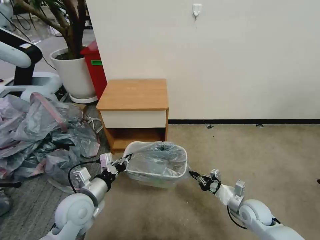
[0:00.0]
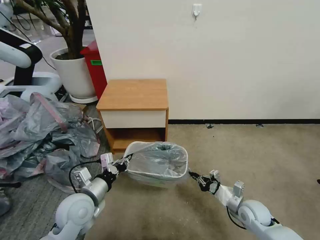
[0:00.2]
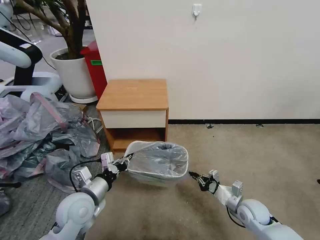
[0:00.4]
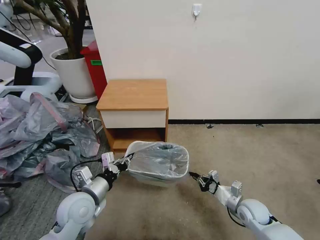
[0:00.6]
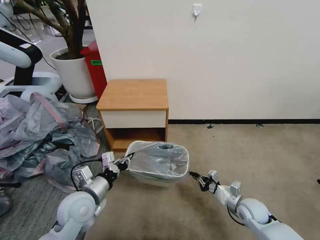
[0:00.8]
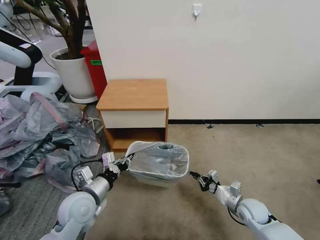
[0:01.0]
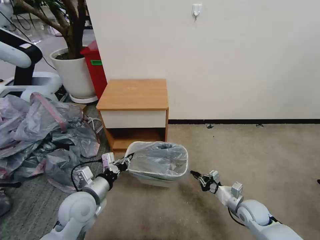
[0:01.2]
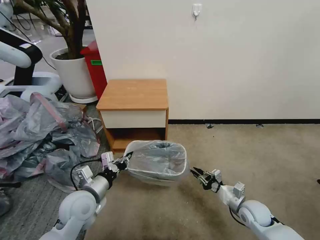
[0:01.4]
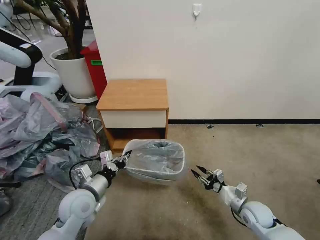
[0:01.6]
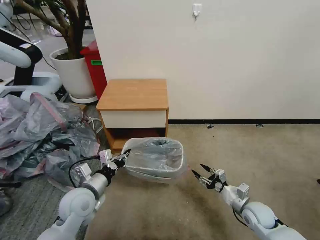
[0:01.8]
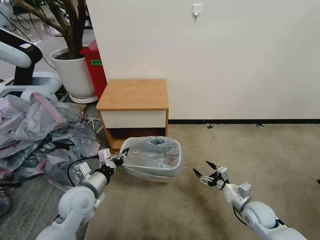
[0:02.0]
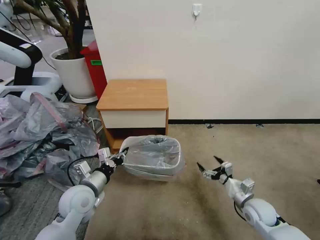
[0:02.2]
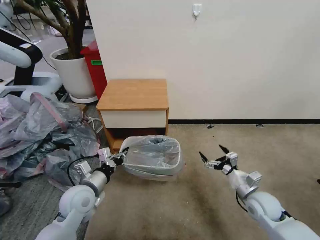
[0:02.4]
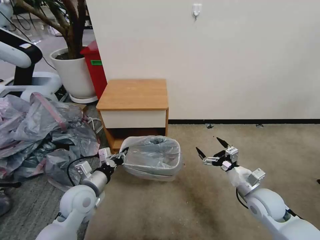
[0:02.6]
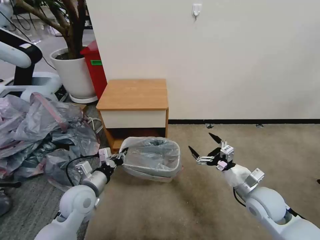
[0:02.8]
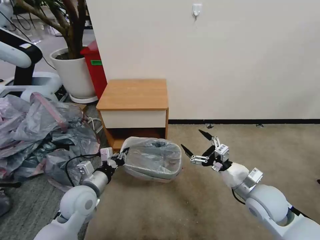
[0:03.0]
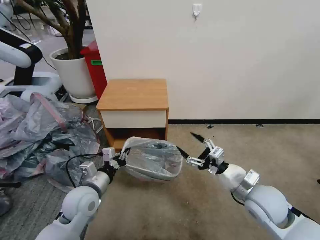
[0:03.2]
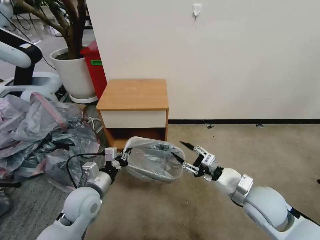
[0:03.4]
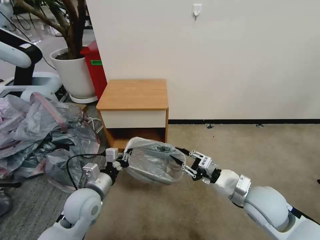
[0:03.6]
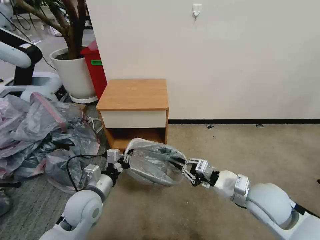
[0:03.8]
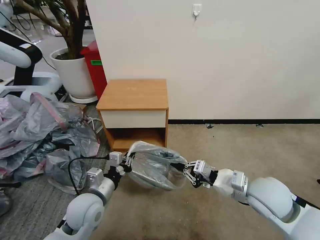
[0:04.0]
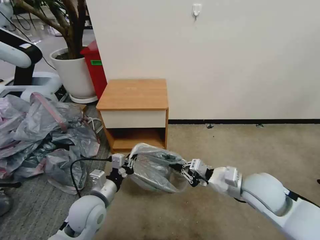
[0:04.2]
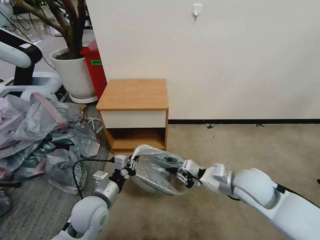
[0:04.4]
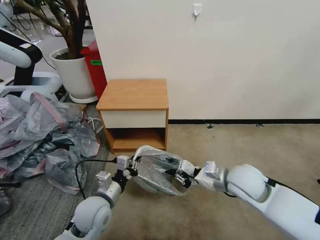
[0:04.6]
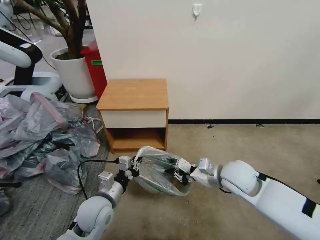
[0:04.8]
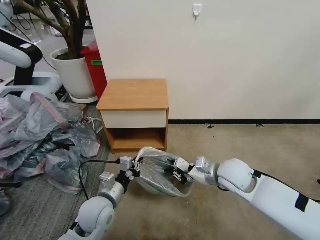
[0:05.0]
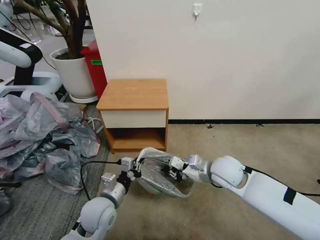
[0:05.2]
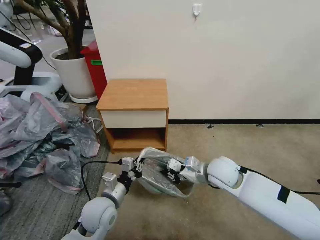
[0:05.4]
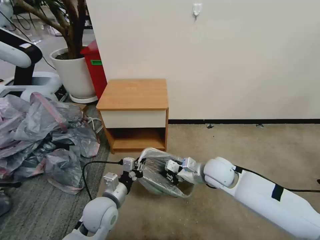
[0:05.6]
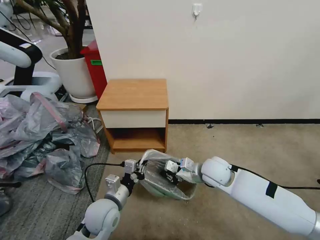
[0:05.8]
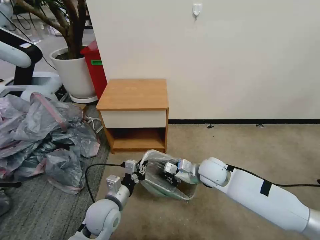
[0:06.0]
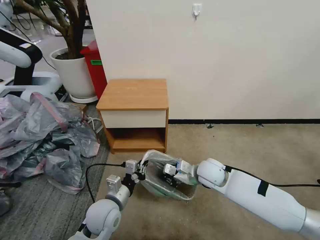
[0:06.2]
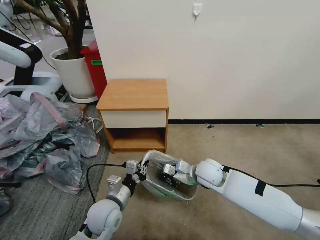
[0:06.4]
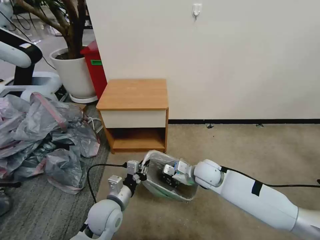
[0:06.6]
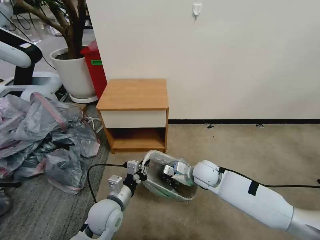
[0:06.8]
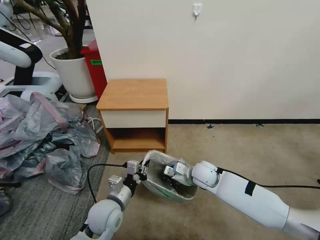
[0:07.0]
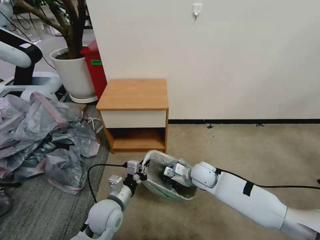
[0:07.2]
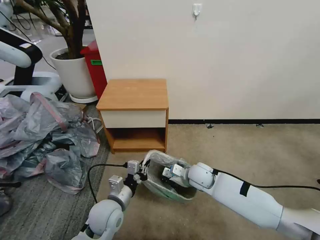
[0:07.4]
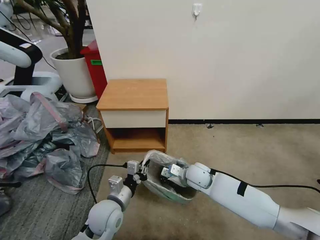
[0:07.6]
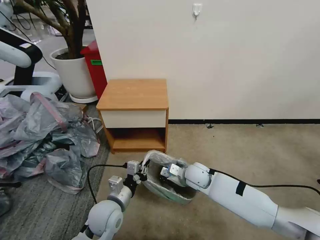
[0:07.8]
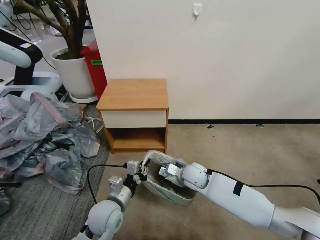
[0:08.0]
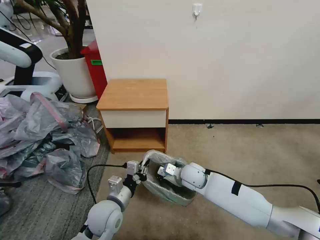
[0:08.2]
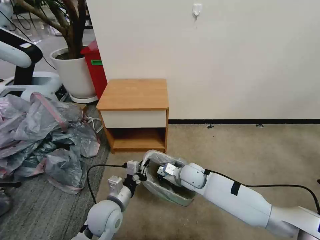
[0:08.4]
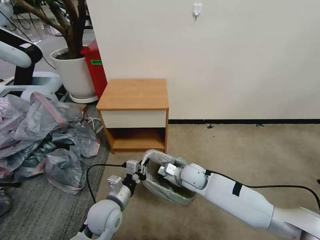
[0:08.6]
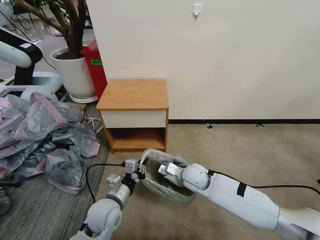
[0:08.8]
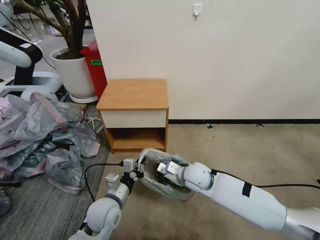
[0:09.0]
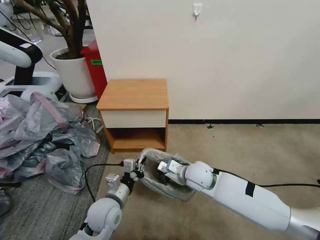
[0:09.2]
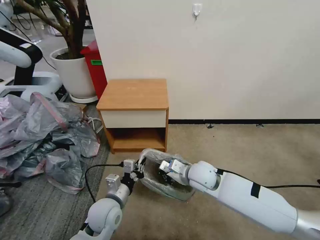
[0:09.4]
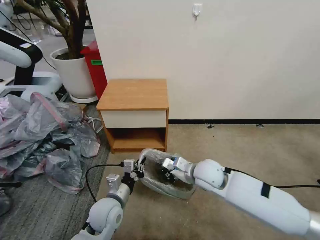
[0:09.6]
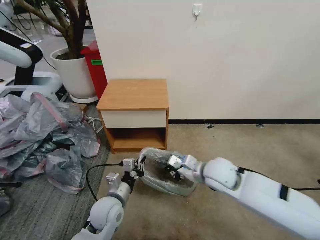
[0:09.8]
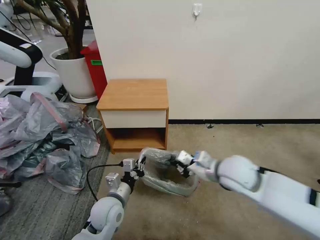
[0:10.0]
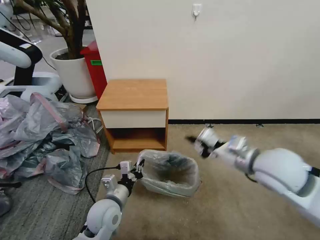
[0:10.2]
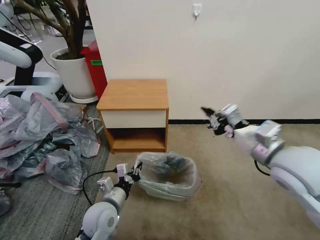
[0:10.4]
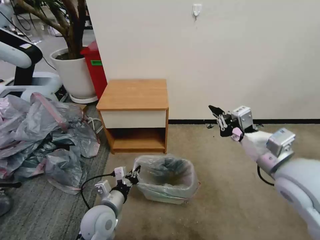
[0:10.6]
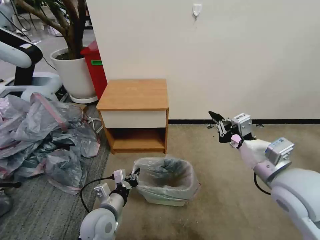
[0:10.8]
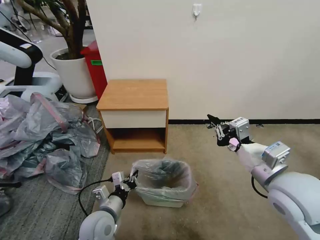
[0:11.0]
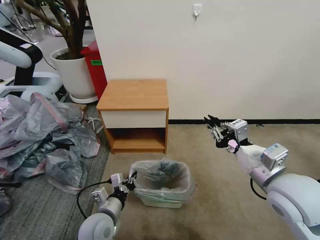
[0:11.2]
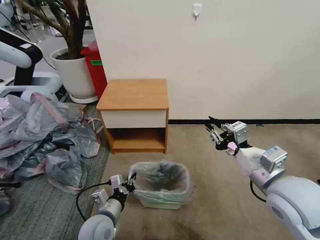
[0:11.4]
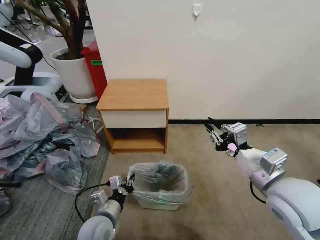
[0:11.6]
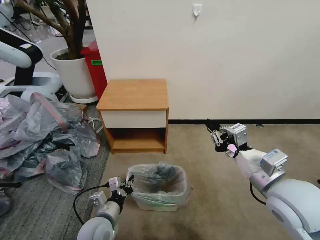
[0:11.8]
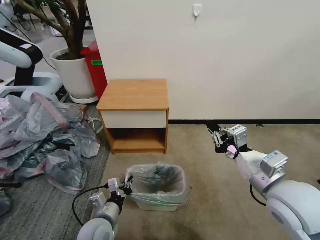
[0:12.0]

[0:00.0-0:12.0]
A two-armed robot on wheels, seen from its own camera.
Task of the whole recording: Pick up the garbage bag from the table and place it over the trash can.
0:00.0 to 0:01.6: The right gripper opens its fingers.
0:01.6 to 0:03.0: The right gripper goes approximately 15 cm upward, and opens up.
0:03.0 to 0:04.4: The left gripper changes place by some 5 cm; the right gripper shifts by some 5 cm, and closes up.
0:04.4 to 0:06.0: The right gripper shifts roughly 15 cm forward, to the left and downward.
0:06.0 to 0:07.6: The right gripper travels downward by approximately 5 cm.
0:07.6 to 0:09.0: There are only small adjustments of the grippers.
0:09.0 to 0:10.4: The right gripper moves upward and to the right, about 30 cm.
0:10.4 to 0:12.0: The right gripper is displaced downward and backward by approximately 5 cm.

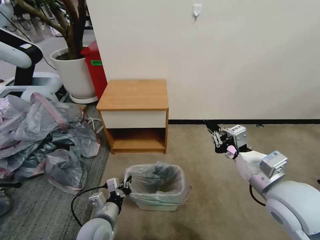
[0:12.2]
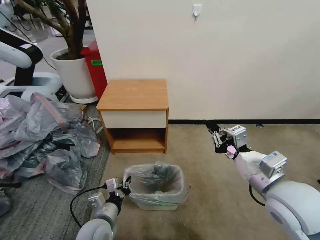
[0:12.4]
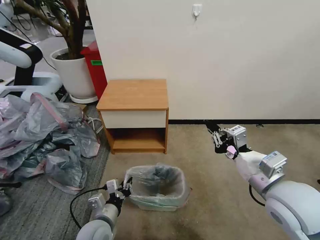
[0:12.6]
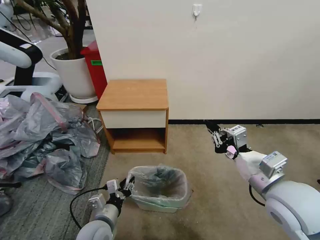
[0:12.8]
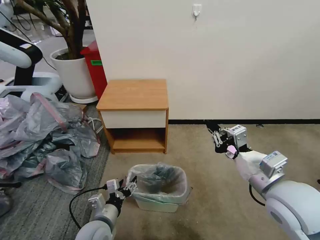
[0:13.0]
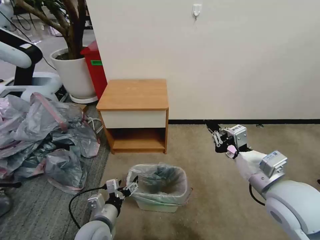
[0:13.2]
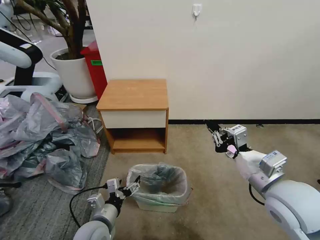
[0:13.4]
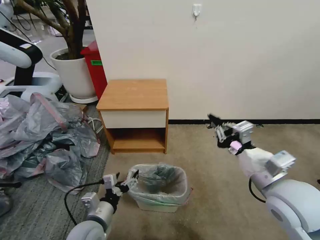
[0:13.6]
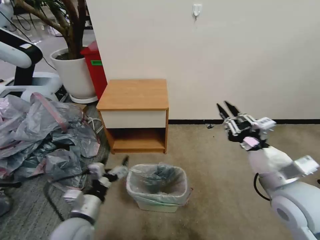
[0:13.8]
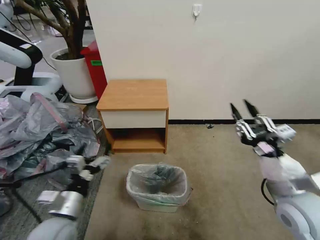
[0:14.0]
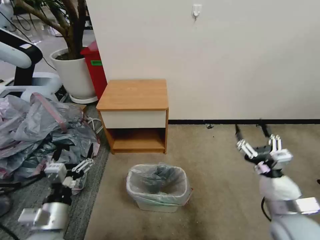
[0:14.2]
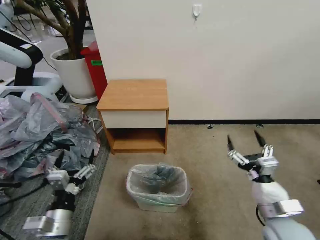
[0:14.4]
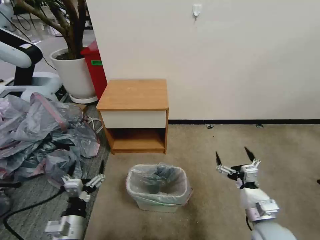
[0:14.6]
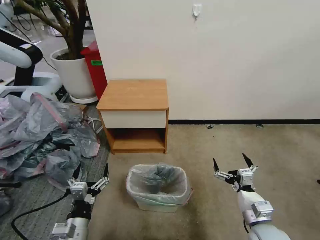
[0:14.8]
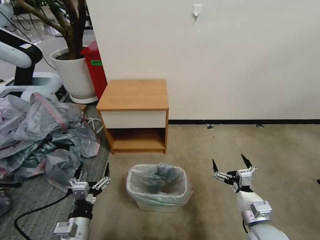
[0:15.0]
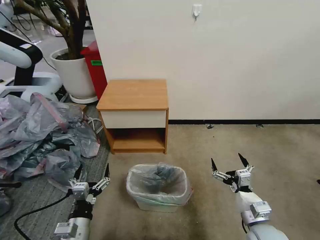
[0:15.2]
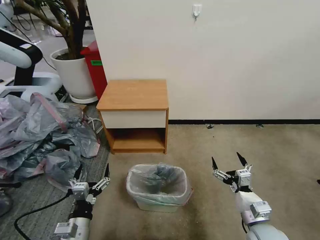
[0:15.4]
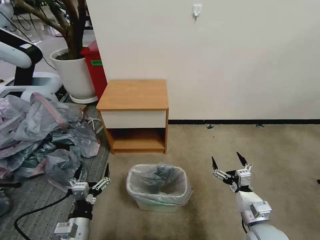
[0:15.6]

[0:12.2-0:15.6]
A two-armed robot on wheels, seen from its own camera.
Task of the whole recording: Pick up the garbage bag from the table and place it over the trash can.
0:12.2 to 0:13.8: The left gripper travels upward by about 5 cm, and opens its fingers.
0:13.8 to 0:15.6: The left gripper travels downward by approximately 5 cm, while the right gripper heads downward, covering roughly 20 cm, and opens up.

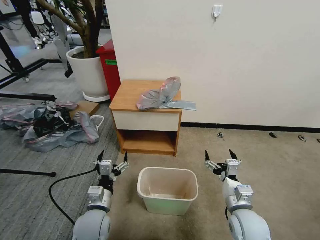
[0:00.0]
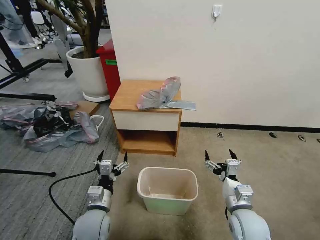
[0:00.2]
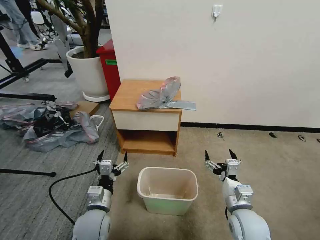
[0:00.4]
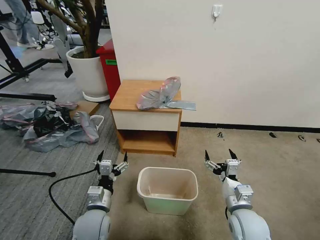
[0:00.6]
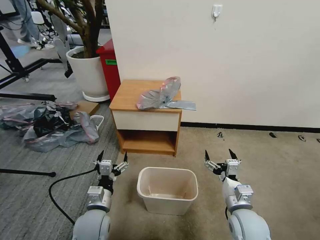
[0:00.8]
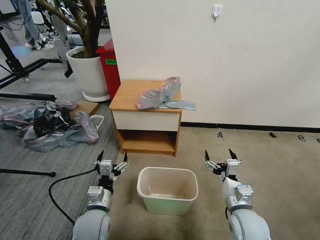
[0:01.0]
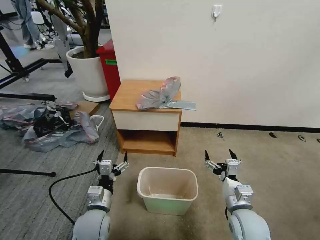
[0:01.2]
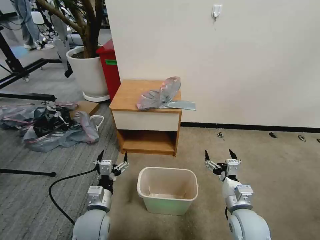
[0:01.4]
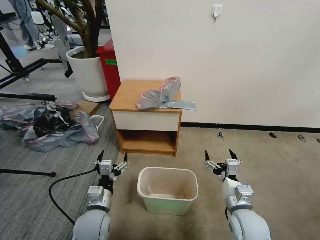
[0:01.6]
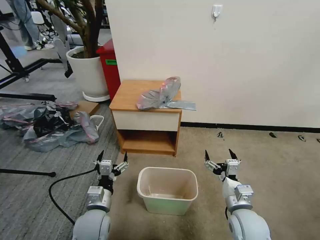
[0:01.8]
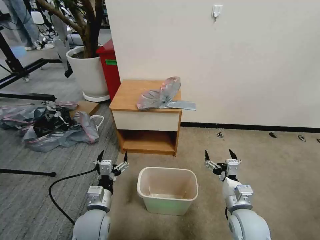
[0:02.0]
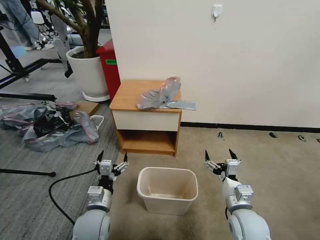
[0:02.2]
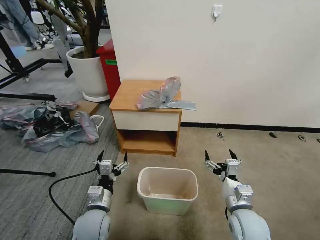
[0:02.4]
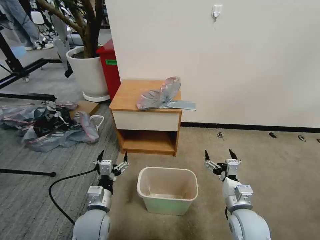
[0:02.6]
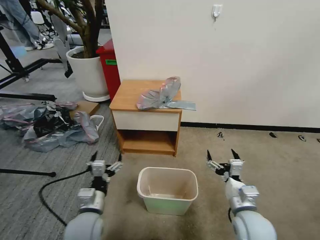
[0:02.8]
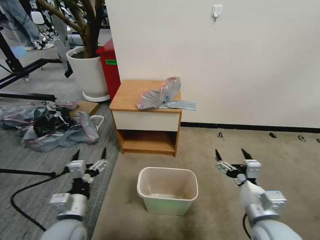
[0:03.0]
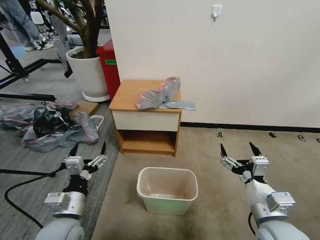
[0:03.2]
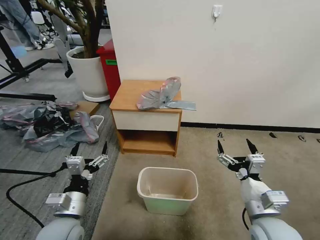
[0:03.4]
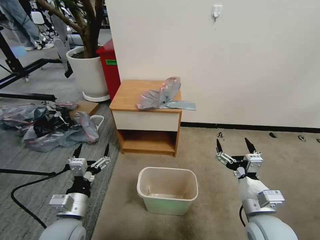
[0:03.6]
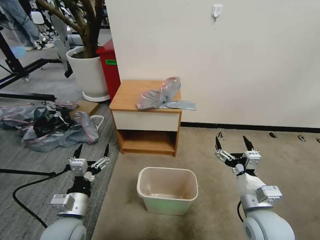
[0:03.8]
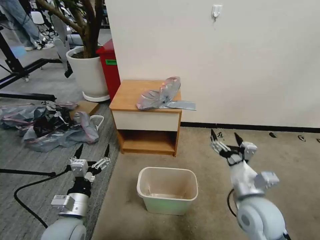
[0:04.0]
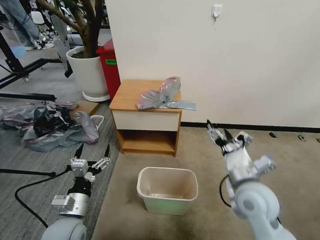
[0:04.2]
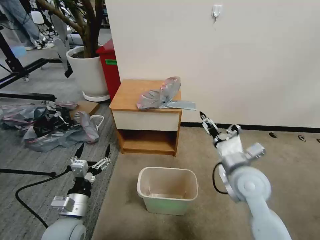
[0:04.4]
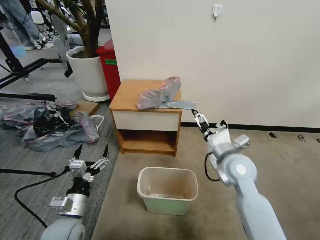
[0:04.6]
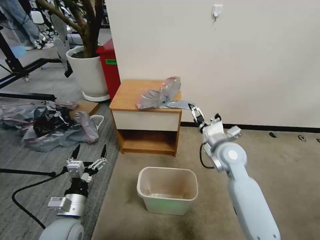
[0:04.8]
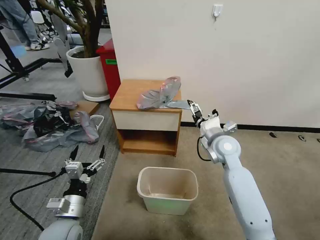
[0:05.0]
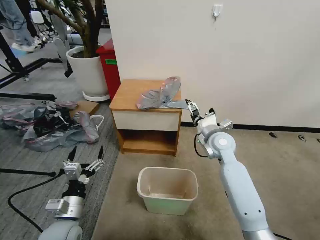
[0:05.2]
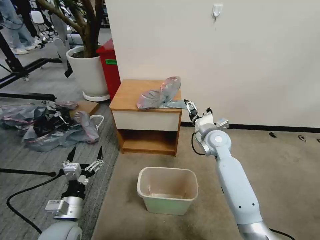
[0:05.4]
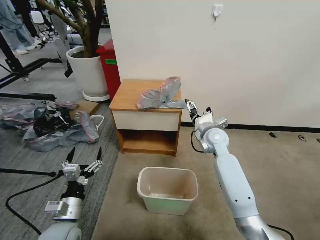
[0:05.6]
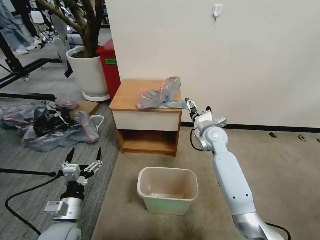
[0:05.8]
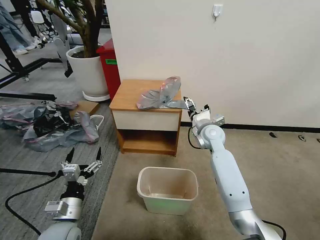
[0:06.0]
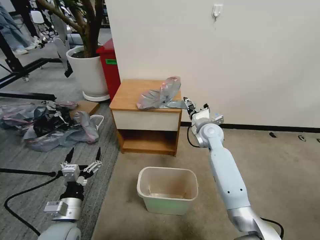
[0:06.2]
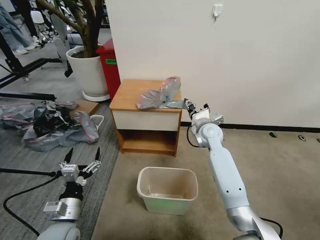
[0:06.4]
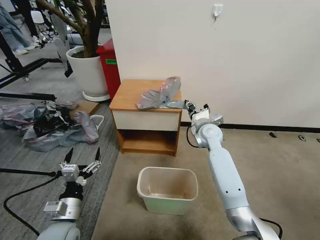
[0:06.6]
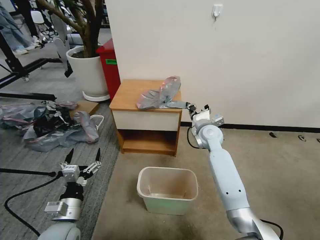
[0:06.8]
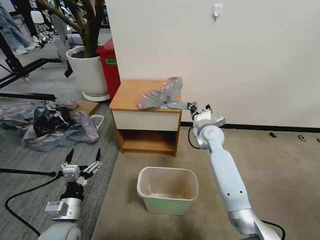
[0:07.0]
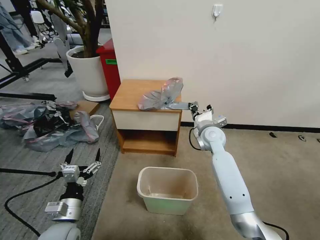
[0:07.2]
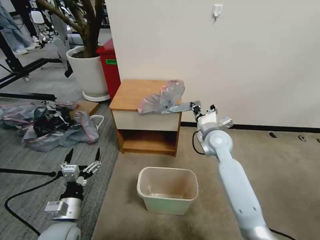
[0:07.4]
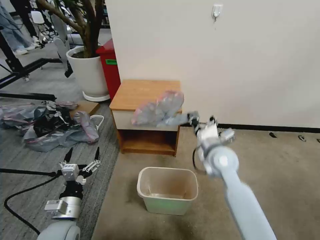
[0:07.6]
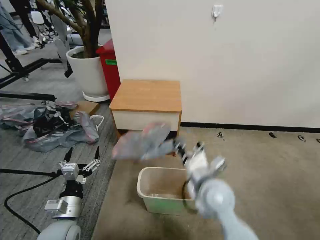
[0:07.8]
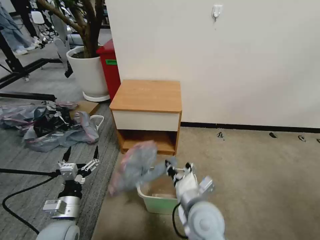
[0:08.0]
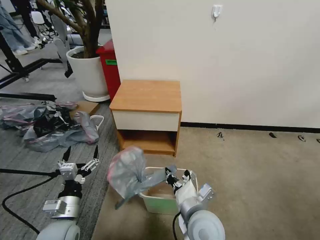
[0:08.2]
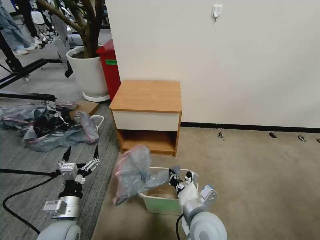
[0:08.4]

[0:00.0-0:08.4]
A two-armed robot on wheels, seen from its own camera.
Task of the whole recording: Pick up the garbage bag from the table and place it over the trash can.
0:01.4 to 0:02.8: The grippers stay close to where they were, moving slightly.
0:02.8 to 0:04.2: The right gripper is displaced upward and forward by approximately 10 cm.
0:04.2 to 0:05.6: The right gripper goes some 20 cm forward.
0:05.6 to 0:07.0: The right gripper closes its fingers.
0:07.0 to 0:08.4: The right gripper moves backward, approximately 30 cm.
